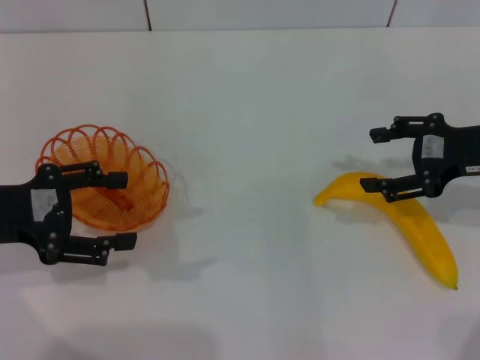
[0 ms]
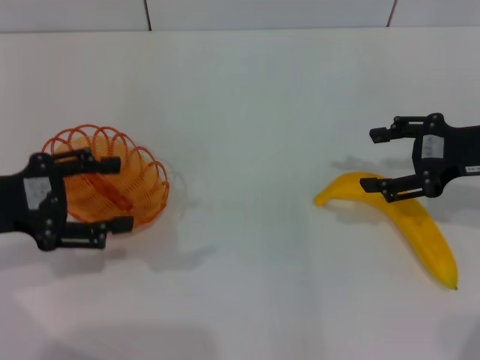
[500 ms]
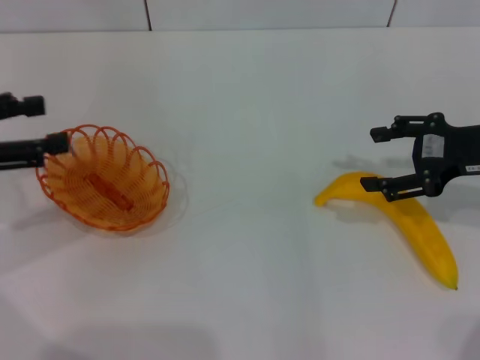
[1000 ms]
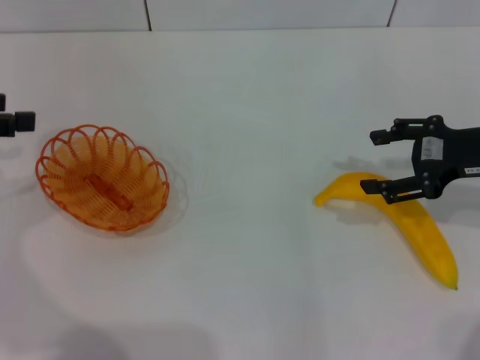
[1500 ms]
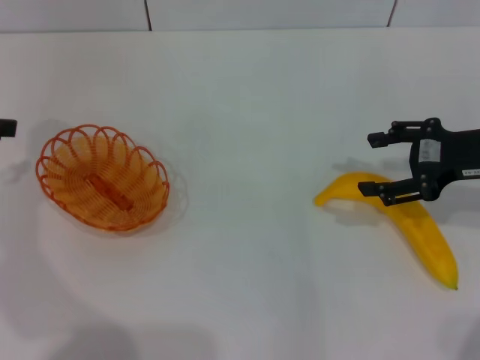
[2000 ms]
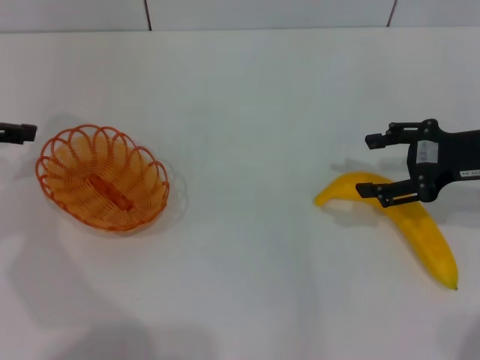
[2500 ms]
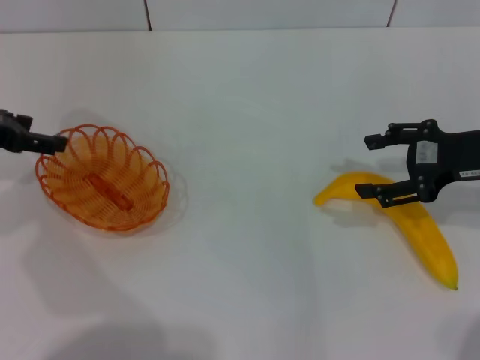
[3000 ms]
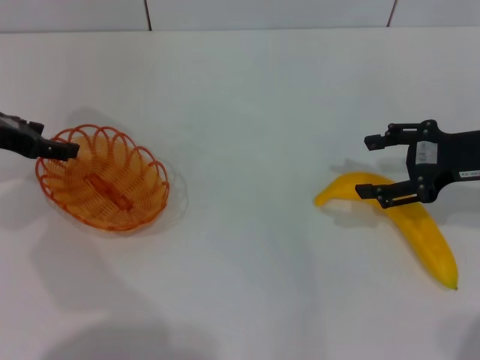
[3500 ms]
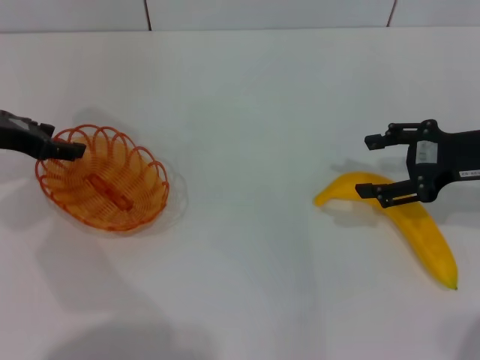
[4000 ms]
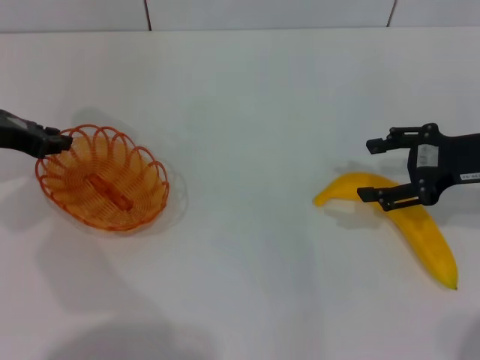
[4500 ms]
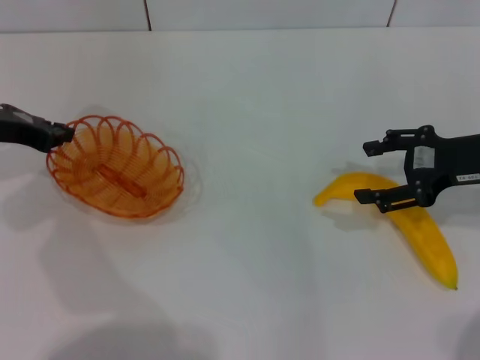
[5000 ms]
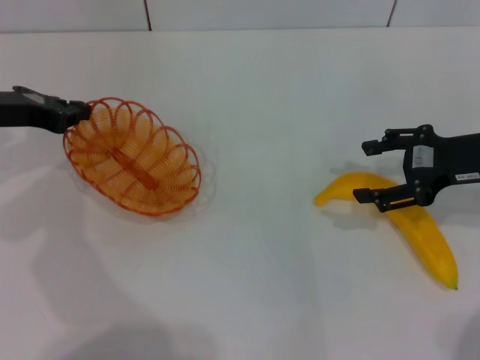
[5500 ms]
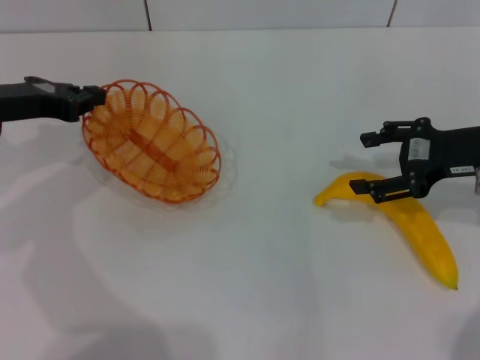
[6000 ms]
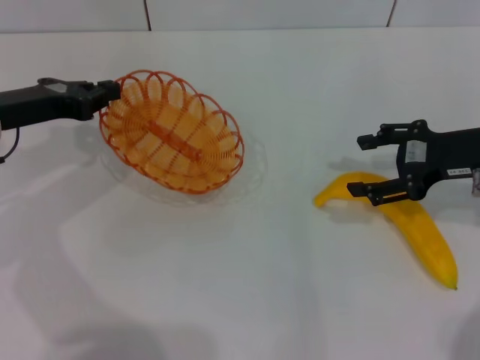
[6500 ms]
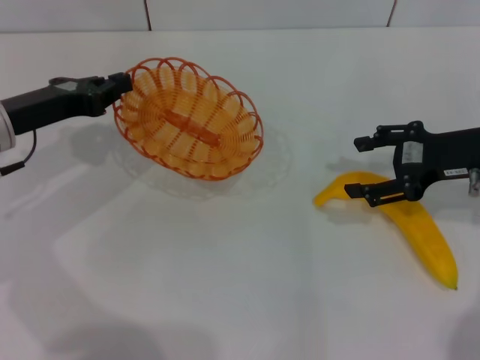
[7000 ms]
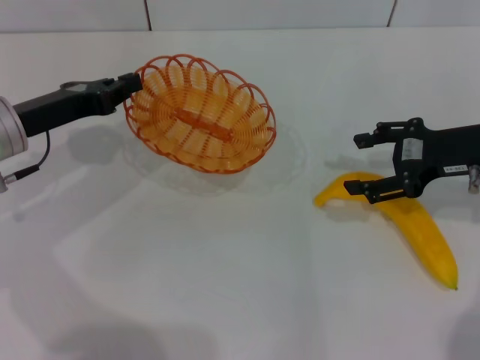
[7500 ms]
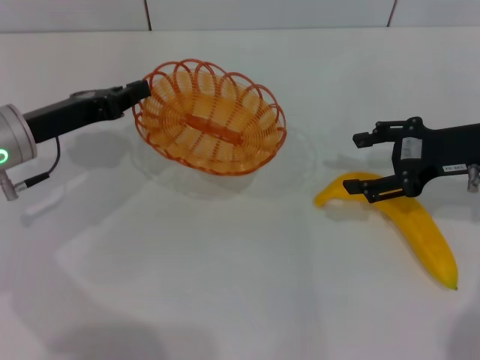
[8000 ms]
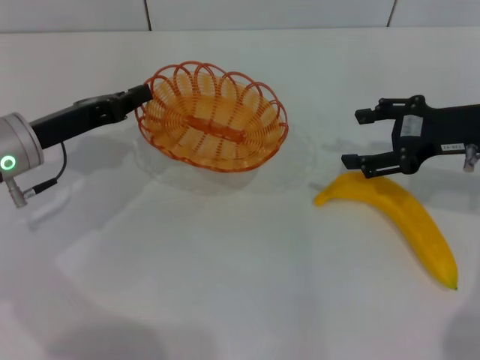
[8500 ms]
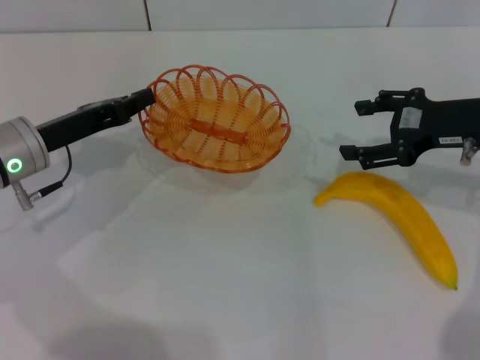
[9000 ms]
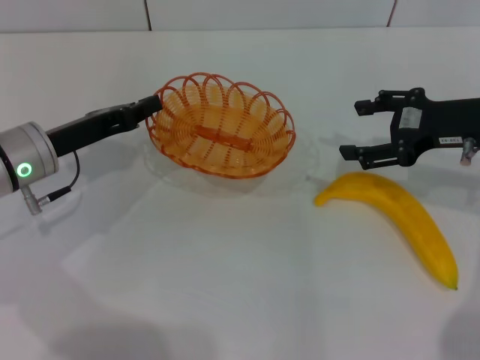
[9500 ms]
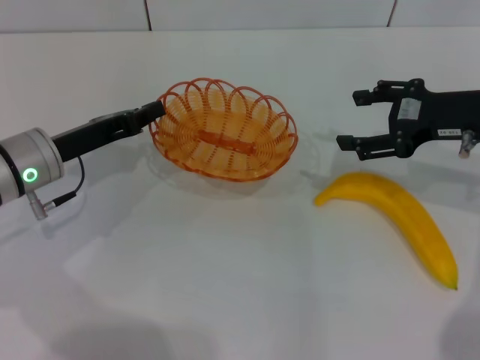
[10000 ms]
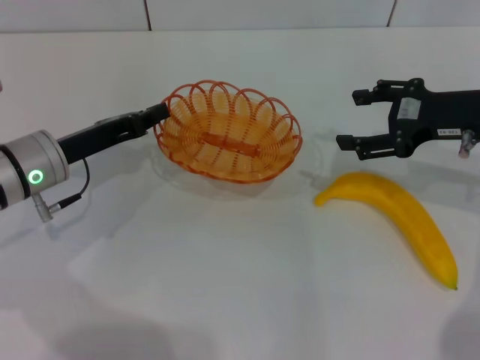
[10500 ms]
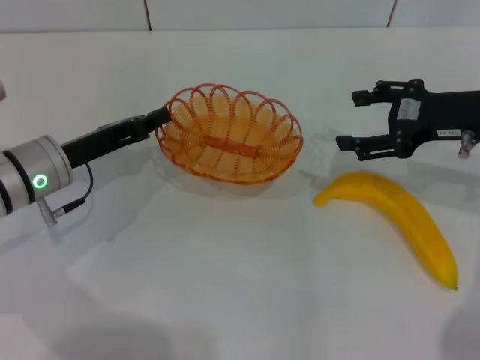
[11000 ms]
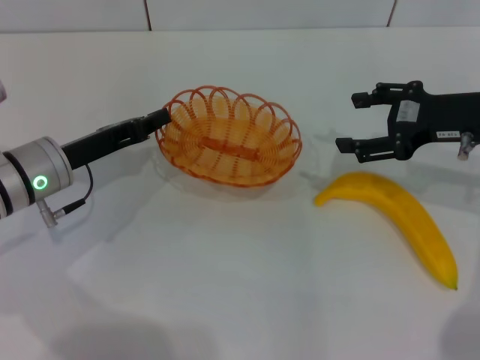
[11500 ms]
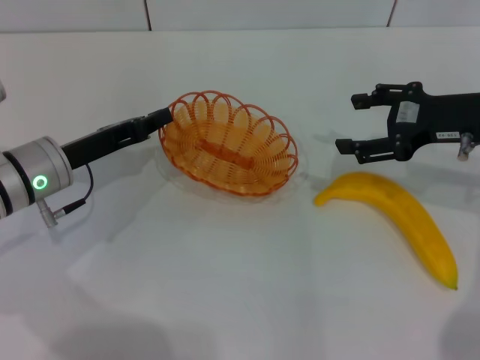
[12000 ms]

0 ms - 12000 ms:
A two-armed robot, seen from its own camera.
Step, 0 ms - 5500 ms: Pick up the basket with the left gripper.
0 ms - 2000 ms: The left gripper moves to the left, upward and forward, roughly 10 cm.
2000 ms - 4000 ms: The left gripper goes about 10 cm to the right and downward.
4000 ms - 6000 ms: The left gripper closes.
6000 ms - 8000 ms: The left gripper shifts by approximately 5 cm.
8000 ms - 10000 ms: The grippers make only small movements.
10000 ms - 12000 ms: The two grippers keep their place.

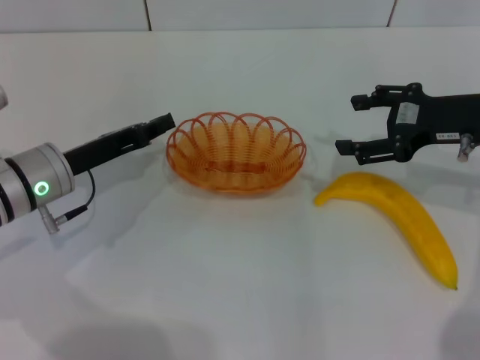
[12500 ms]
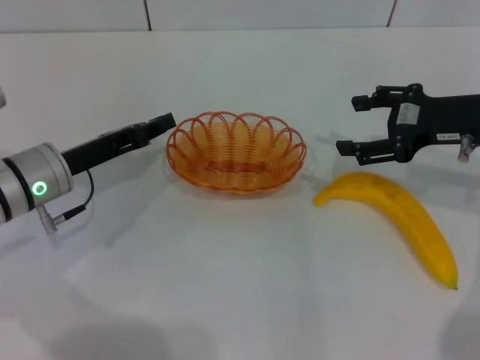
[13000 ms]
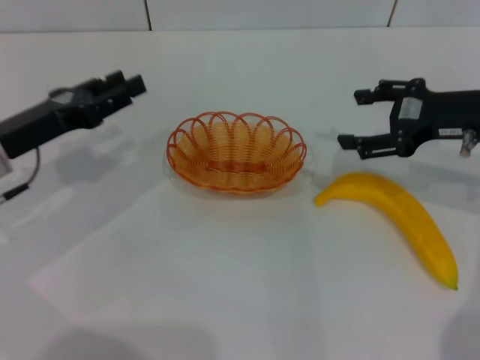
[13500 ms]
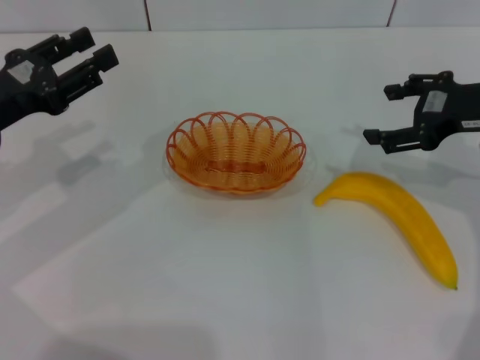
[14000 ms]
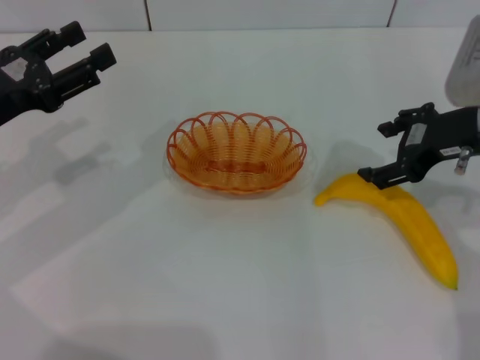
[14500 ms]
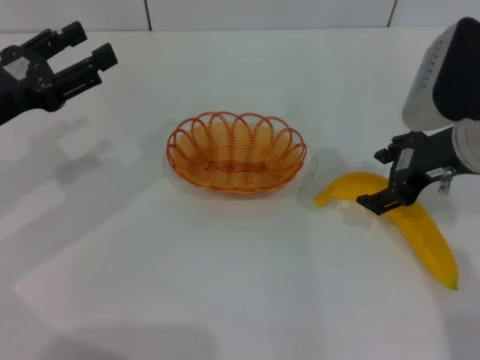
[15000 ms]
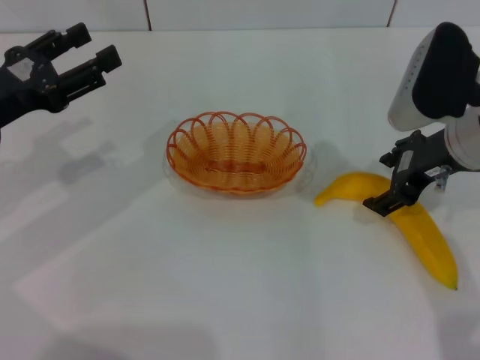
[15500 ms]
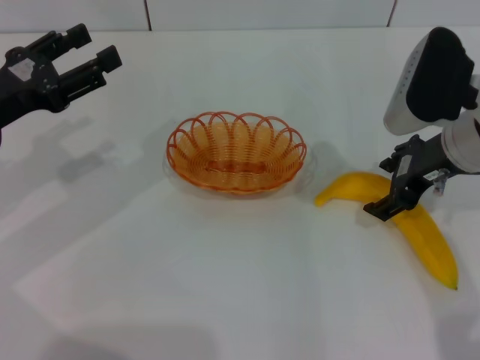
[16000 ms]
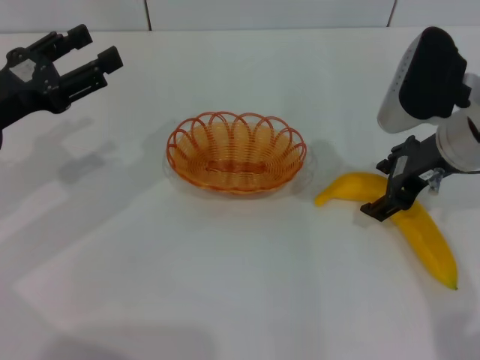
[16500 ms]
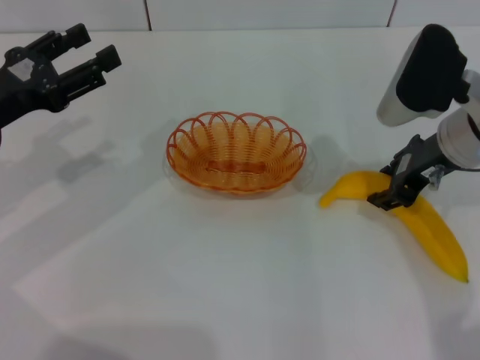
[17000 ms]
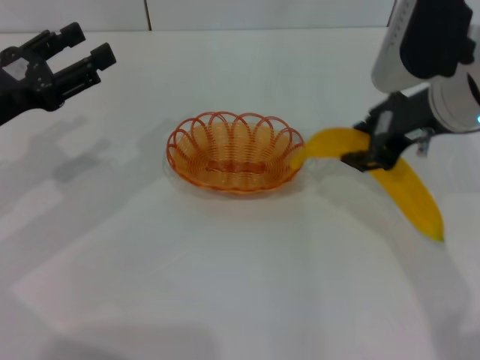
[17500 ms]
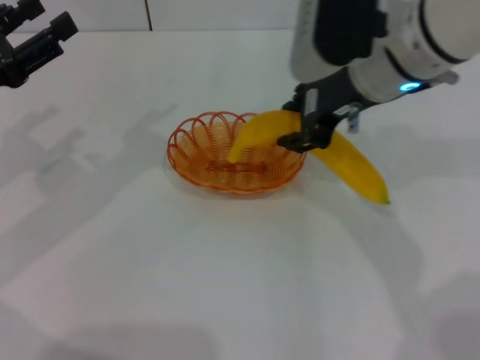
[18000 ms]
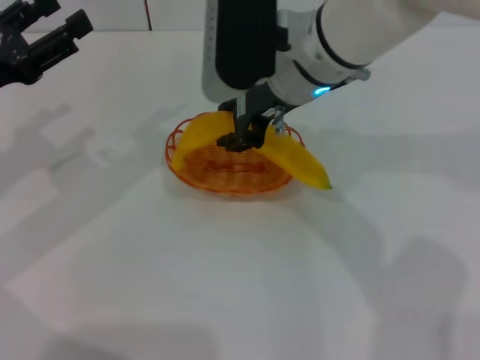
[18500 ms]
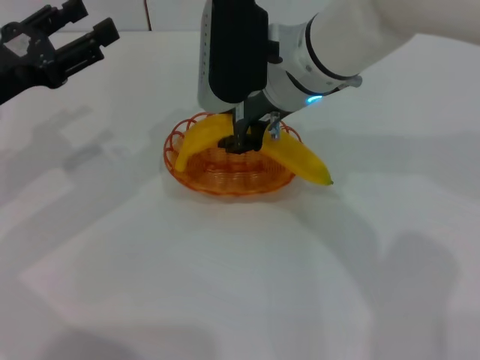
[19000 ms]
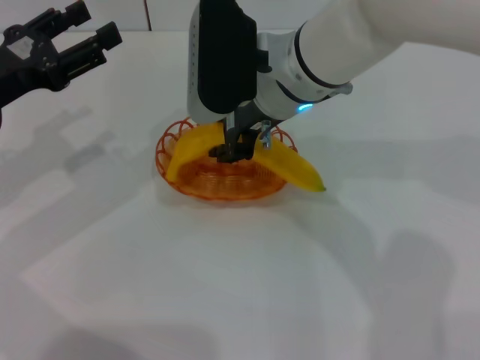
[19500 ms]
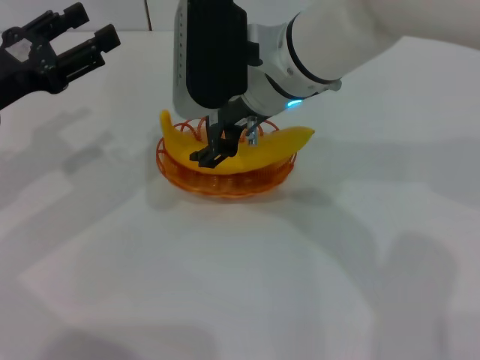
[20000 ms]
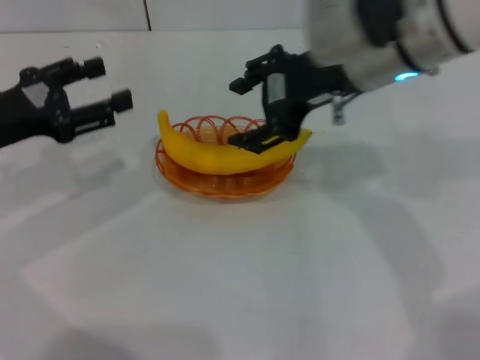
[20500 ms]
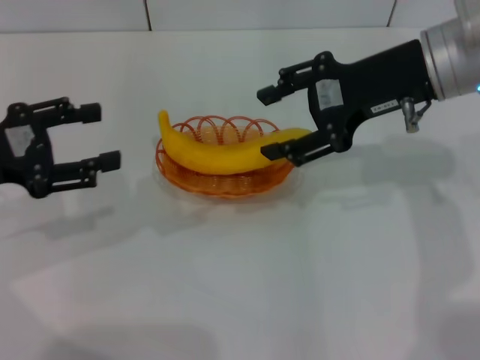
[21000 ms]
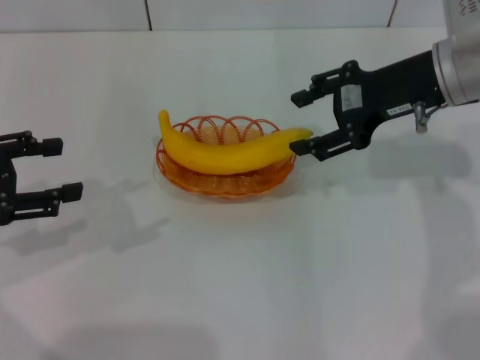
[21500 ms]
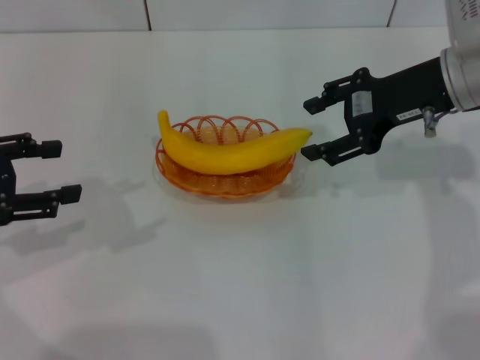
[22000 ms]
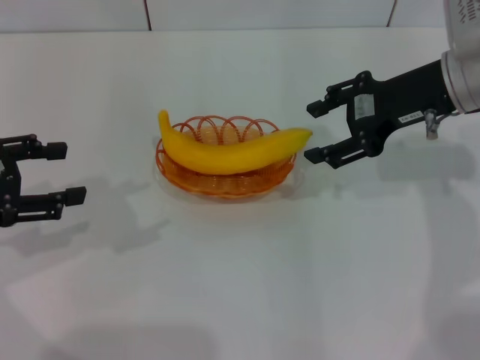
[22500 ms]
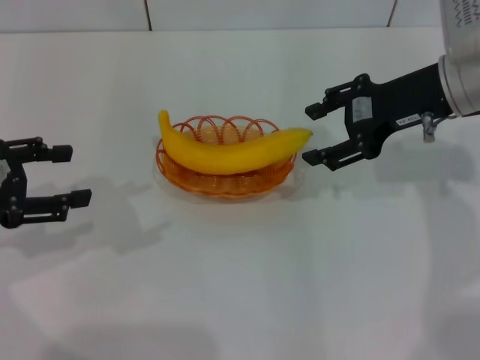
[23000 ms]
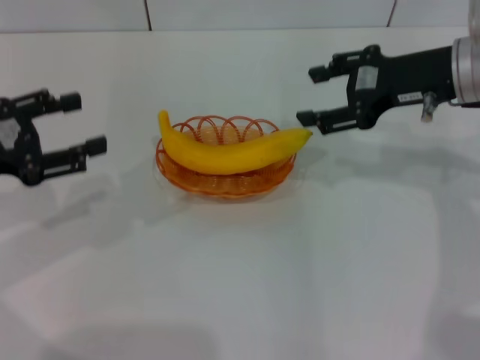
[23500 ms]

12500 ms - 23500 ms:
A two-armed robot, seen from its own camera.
Step, 13000 ms - 17000 ms: Pick up the banana with the right gripper.
Step, 17500 ms - 20000 ms: Place the banana into the basket with the right gripper.
12500 ms - 14500 ms: The left gripper shifts some 10 cm upward and to the left, and opens.
14500 ms - 16000 ms: There are only small adjustments of the grippers.
16000 ms - 18000 ms: The right gripper goes approximately 10 cm to the left and upward, and closes.
18000 ms - 20000 ms: The right gripper goes approximately 10 cm to the left, and opens up.
20000 ms - 21500 ms: The left gripper is displaced backward by some 5 cm; the right gripper shifts about 20 cm to the right.
21500 ms - 23500 ms: The grippers stay close to where they were, moving slightly.

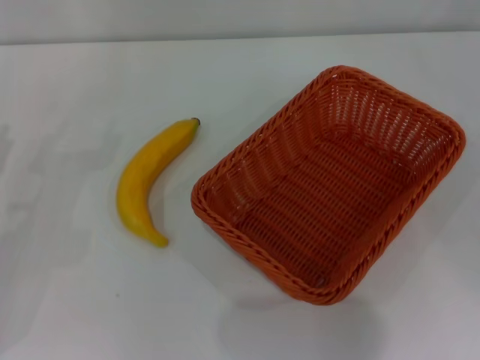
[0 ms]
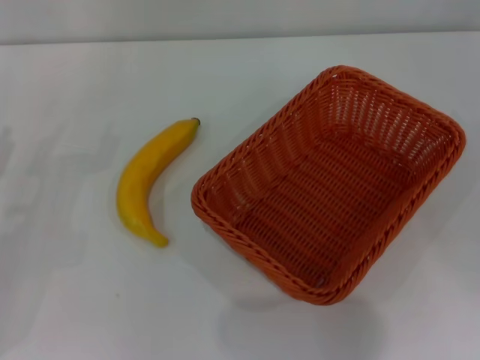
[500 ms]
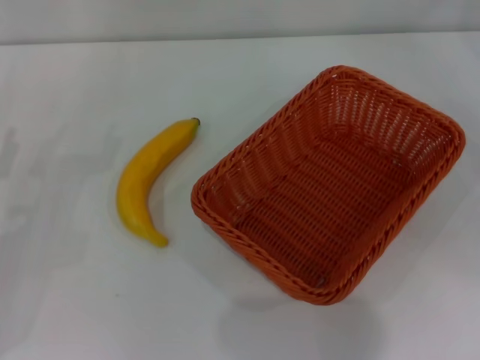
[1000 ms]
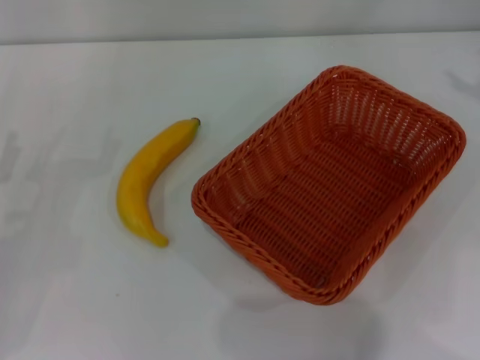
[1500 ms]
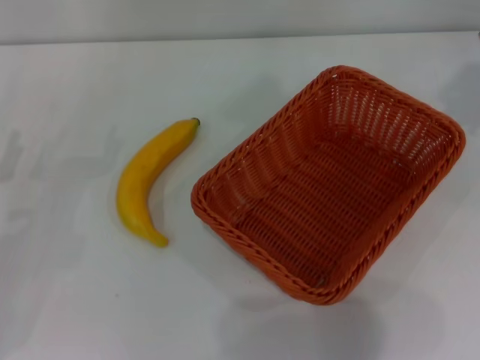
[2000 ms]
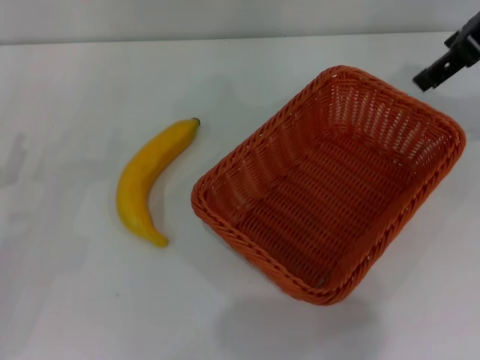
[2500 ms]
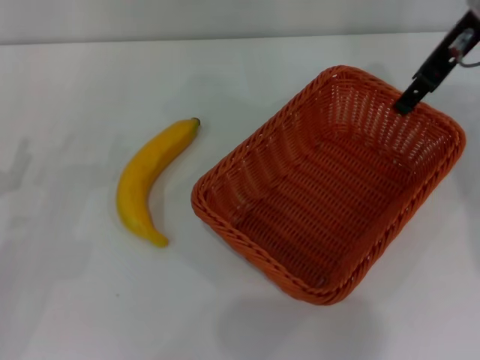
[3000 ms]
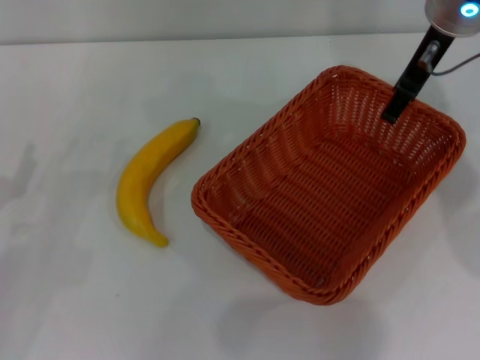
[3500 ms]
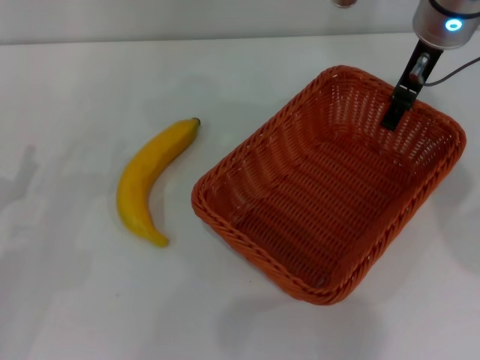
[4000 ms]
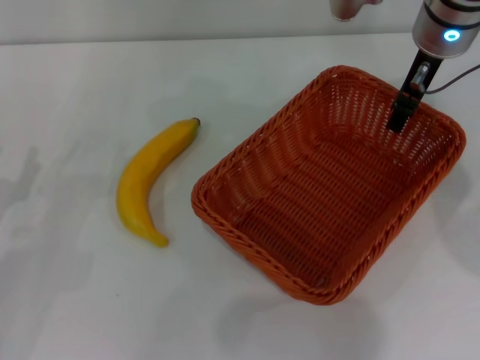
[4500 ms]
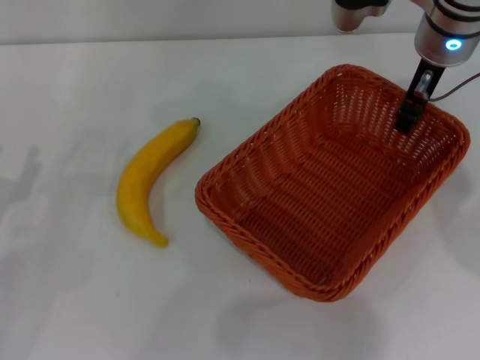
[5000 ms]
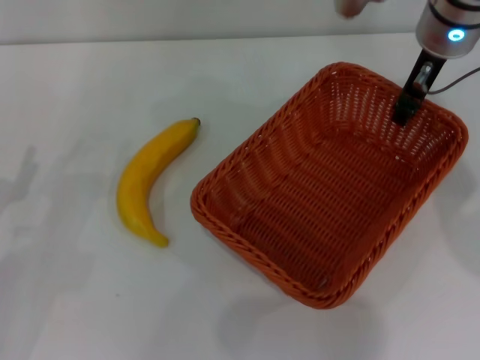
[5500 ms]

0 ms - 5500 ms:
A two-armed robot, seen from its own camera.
2000 ms - 3500 ms: The right gripper is displaced to the left and downward by about 15 cm.
3500 ms - 5500 ms: The right gripper closes its fingers.
